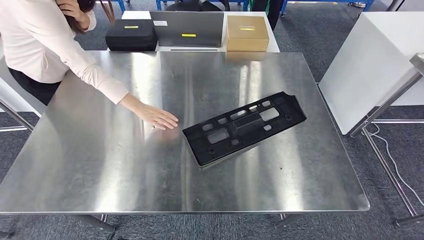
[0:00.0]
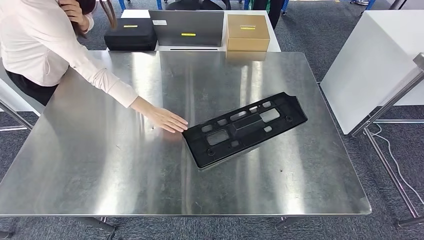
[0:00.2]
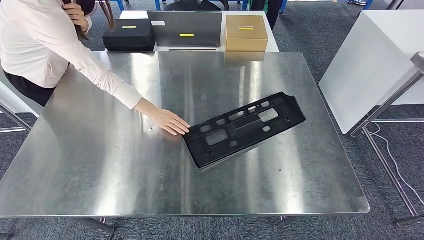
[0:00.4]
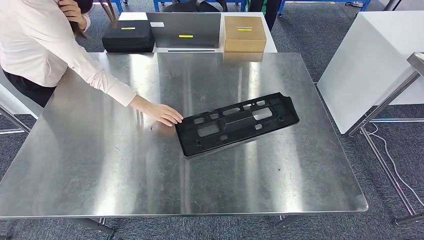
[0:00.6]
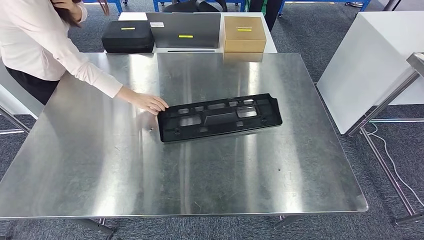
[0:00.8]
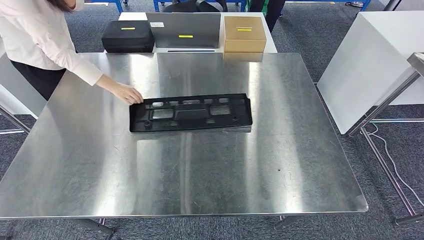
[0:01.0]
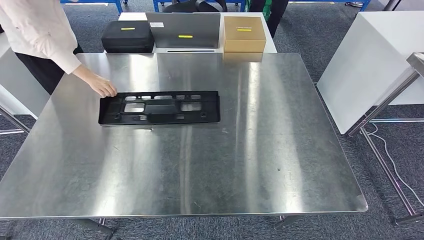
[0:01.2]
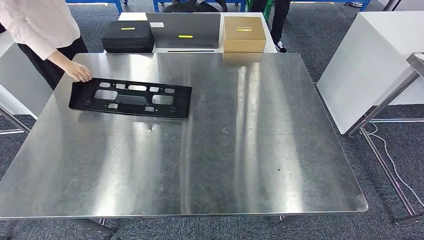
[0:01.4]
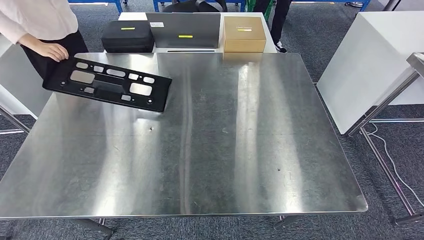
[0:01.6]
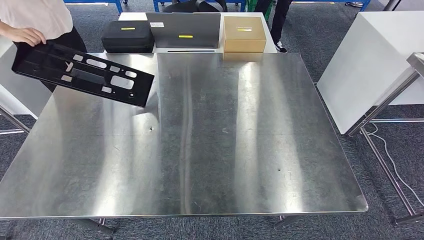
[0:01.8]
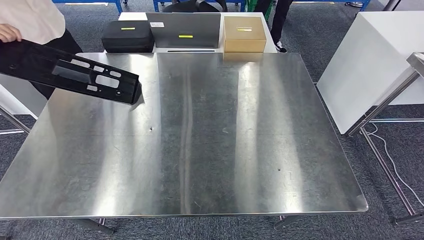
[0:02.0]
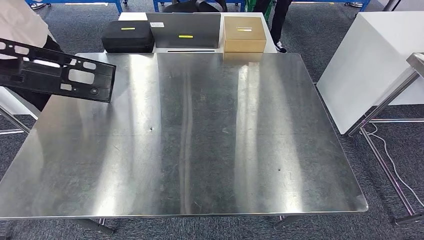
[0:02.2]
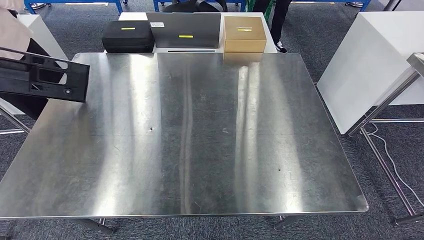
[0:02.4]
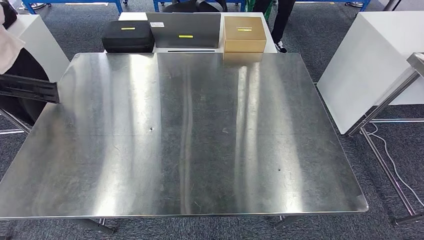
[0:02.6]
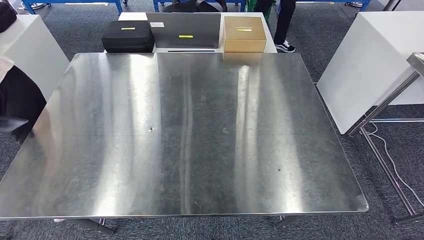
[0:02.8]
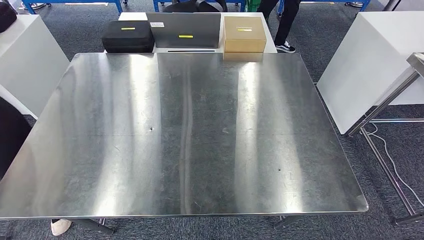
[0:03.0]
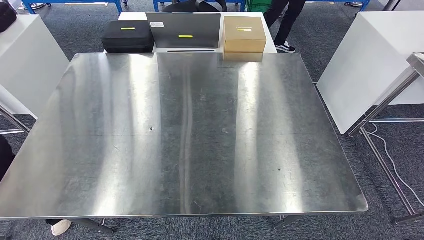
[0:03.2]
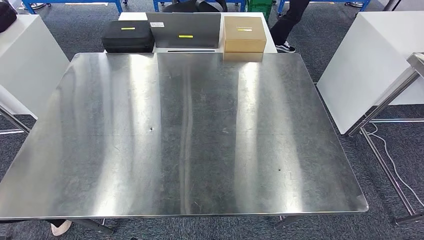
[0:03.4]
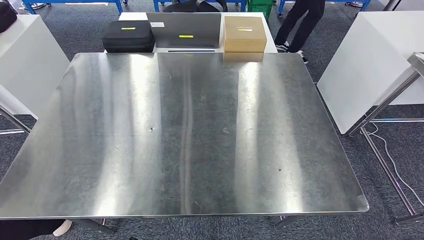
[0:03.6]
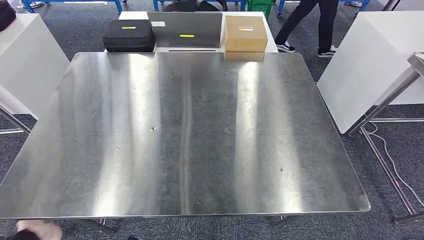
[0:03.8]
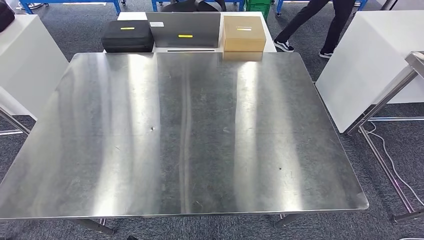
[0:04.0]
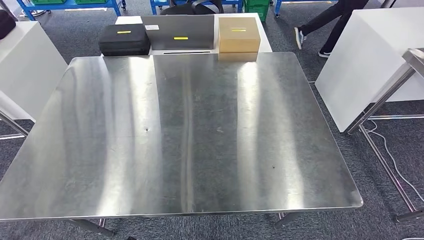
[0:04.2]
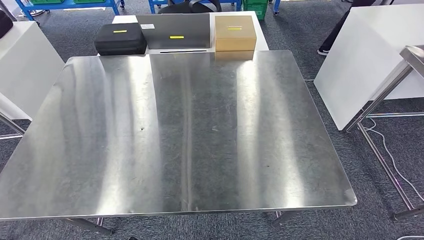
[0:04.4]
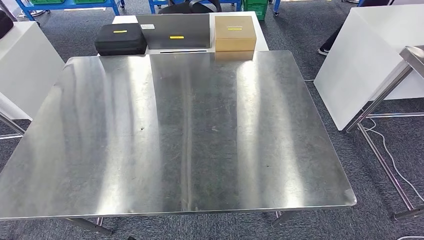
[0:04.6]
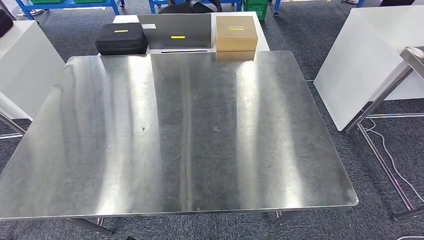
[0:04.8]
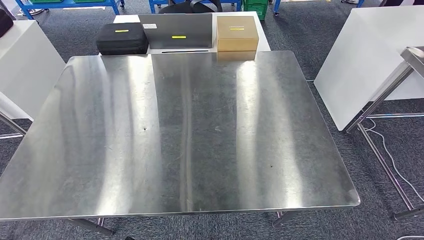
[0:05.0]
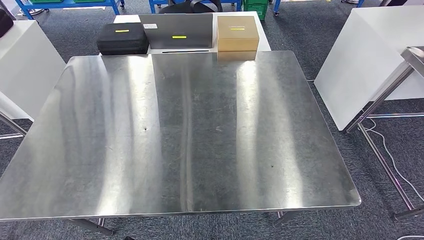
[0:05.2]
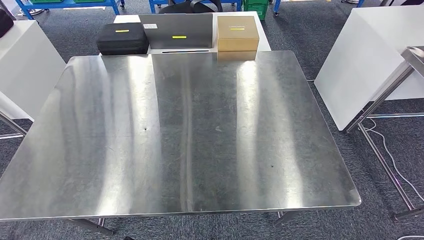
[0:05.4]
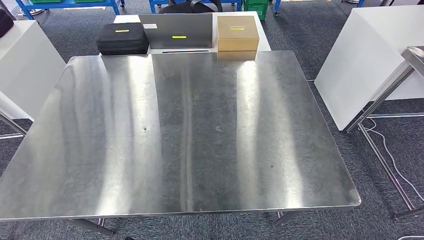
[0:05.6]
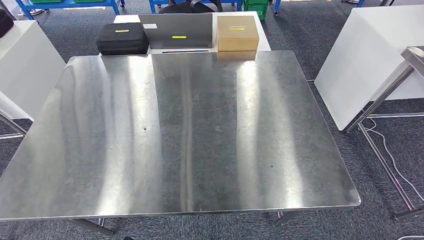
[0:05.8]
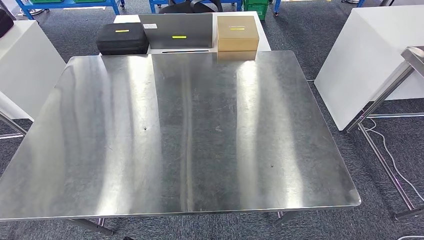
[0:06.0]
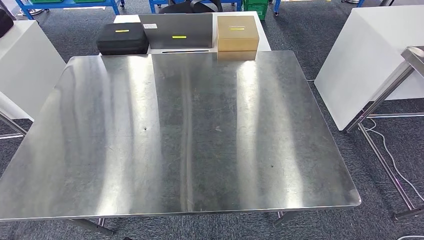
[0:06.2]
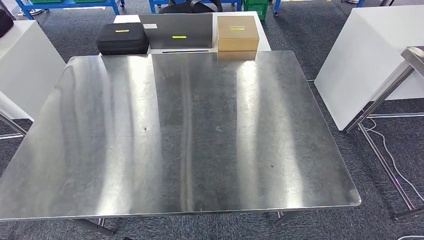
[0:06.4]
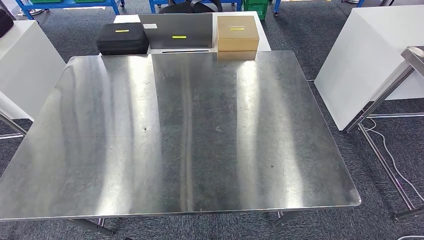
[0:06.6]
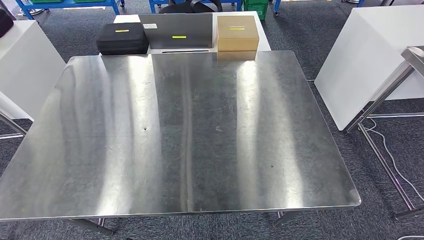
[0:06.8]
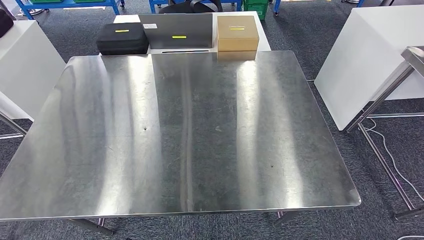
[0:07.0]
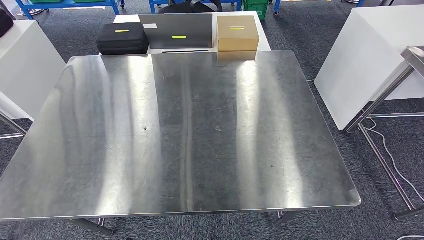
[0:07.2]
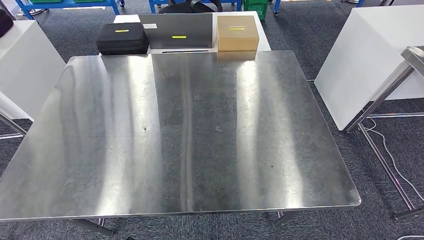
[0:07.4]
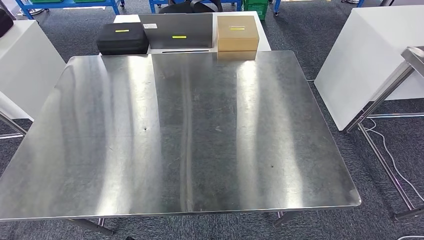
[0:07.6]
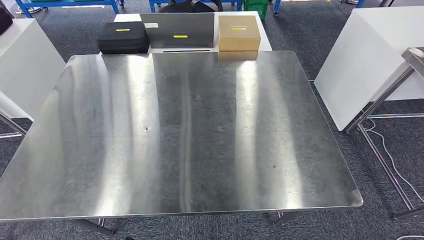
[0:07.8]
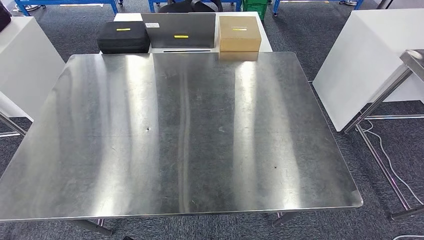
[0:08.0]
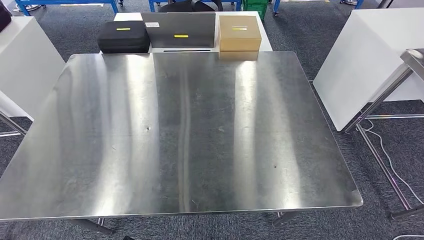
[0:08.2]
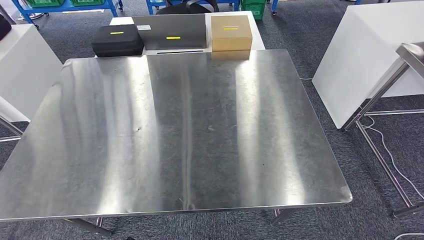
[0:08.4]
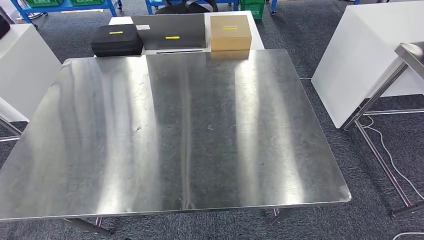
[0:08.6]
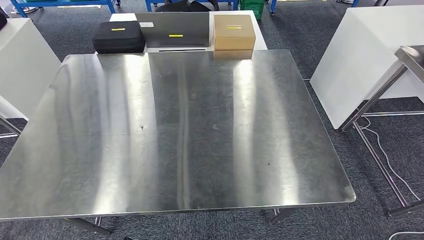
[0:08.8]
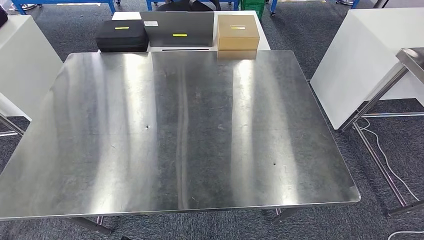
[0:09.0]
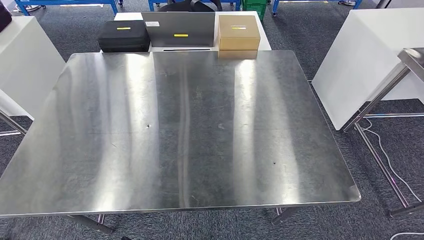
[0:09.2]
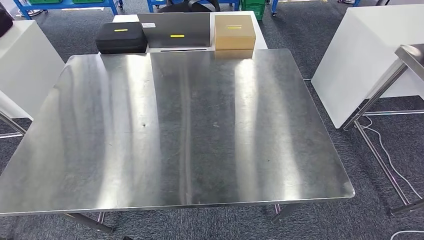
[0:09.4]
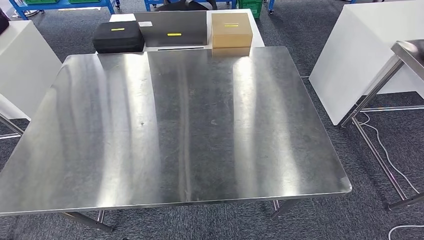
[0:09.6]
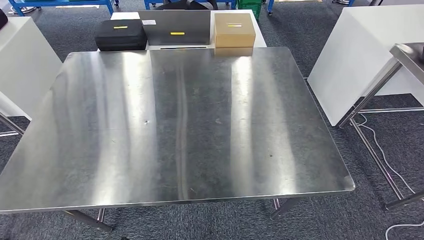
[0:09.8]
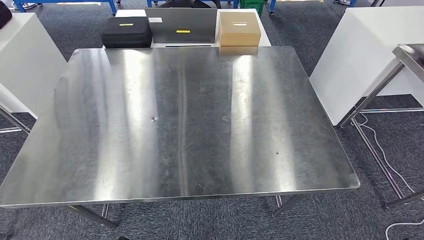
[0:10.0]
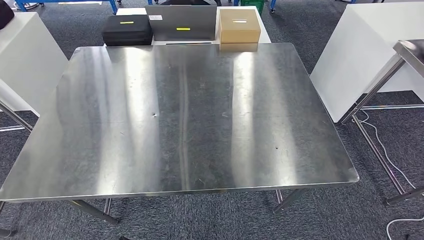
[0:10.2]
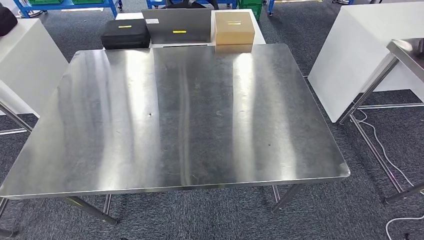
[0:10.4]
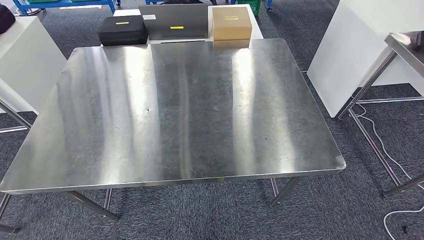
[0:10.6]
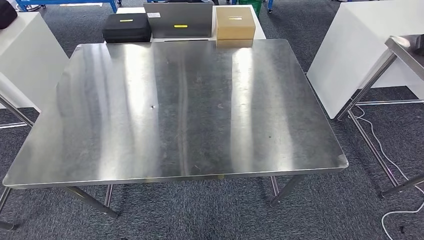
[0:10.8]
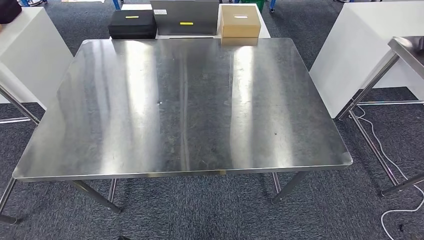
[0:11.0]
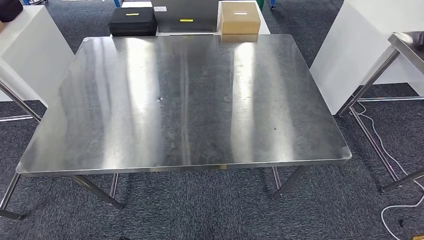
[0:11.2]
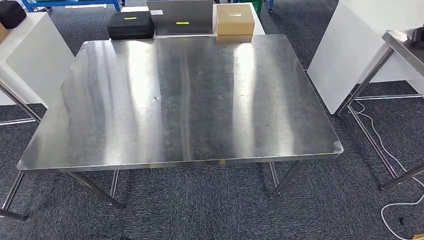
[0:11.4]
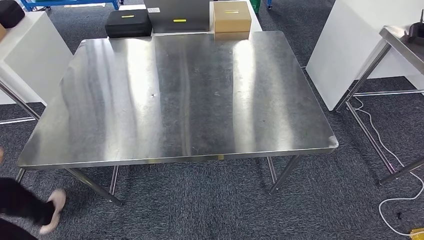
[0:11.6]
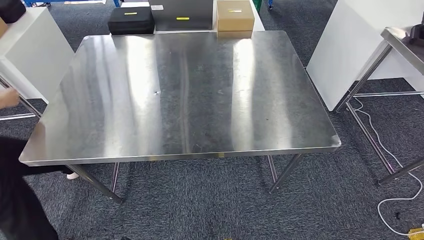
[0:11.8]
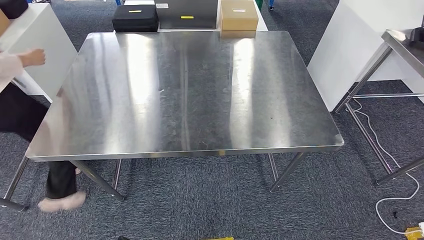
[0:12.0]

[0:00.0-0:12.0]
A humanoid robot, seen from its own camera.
0:01.6 to 0:03.0: The right hand shifts about 15 cm to the left.
0:03.0 to 0:04.4: The hands move only a little.
0:04.4 to 0:09.0: Both hands stay put.

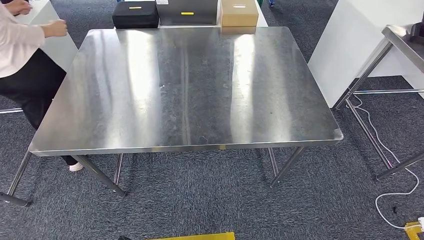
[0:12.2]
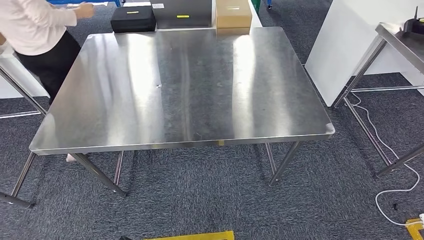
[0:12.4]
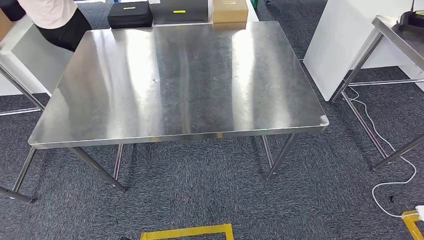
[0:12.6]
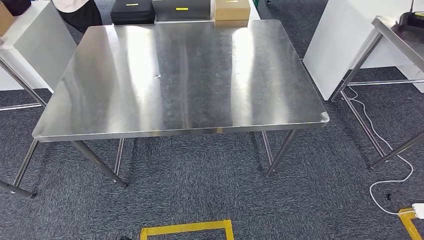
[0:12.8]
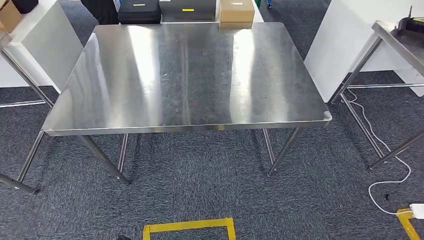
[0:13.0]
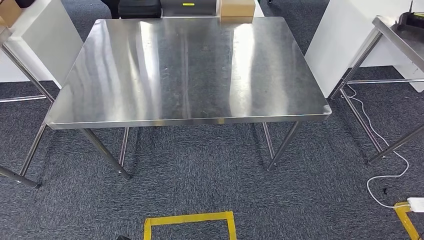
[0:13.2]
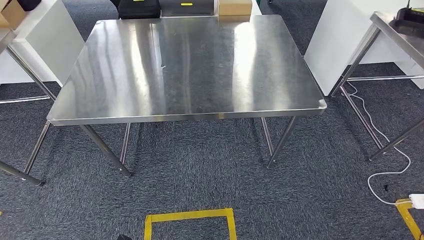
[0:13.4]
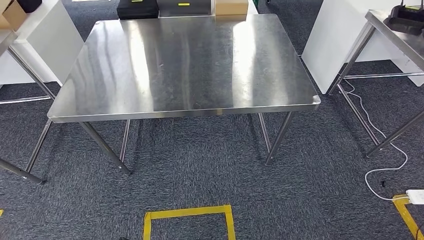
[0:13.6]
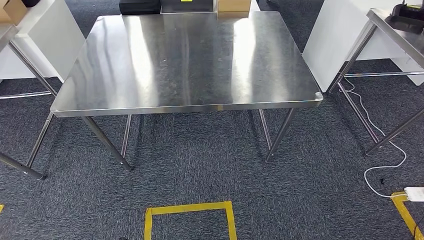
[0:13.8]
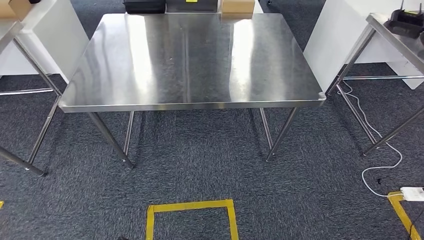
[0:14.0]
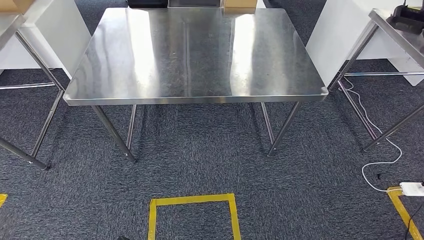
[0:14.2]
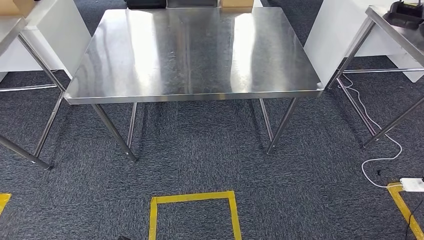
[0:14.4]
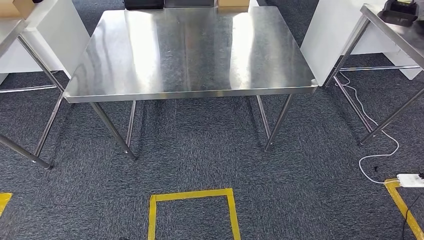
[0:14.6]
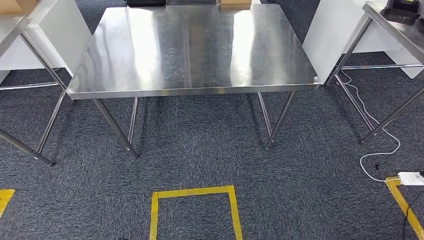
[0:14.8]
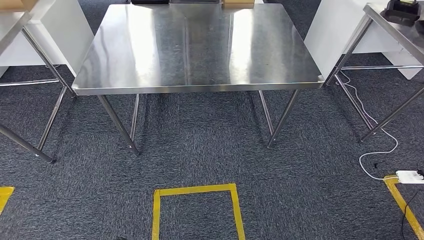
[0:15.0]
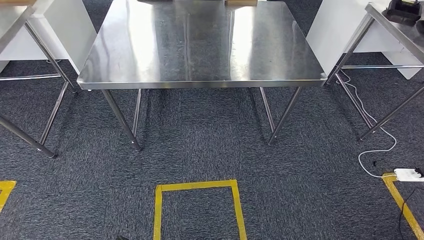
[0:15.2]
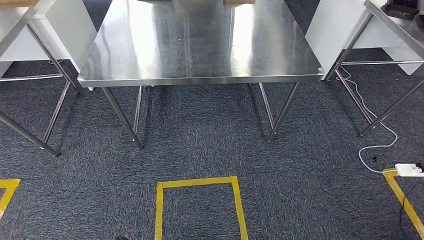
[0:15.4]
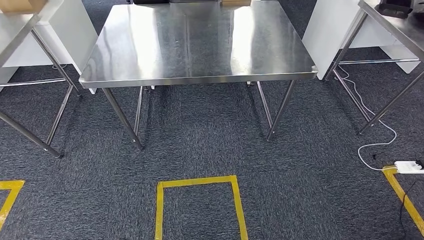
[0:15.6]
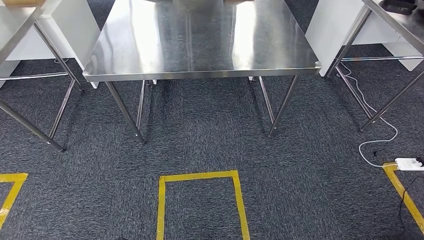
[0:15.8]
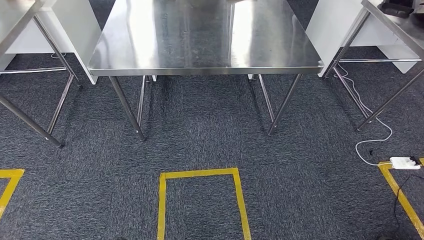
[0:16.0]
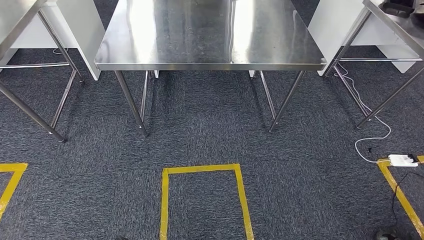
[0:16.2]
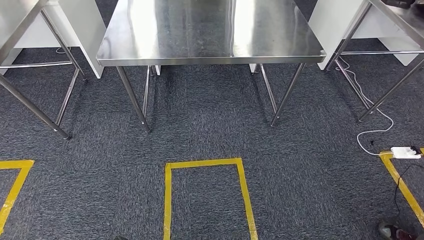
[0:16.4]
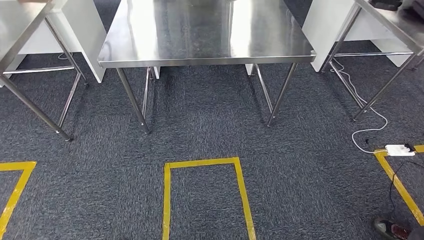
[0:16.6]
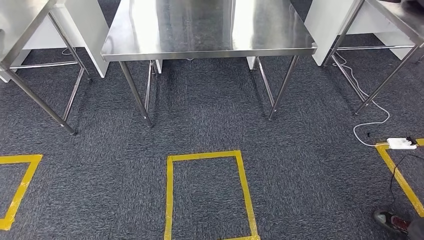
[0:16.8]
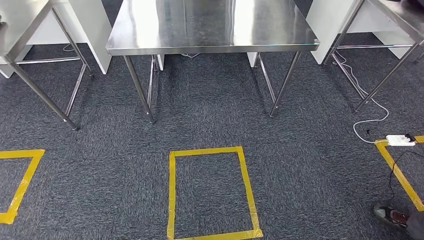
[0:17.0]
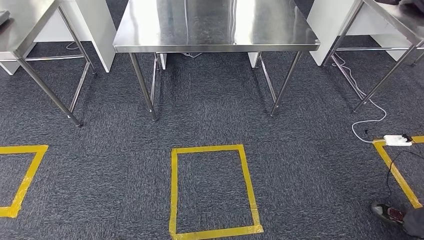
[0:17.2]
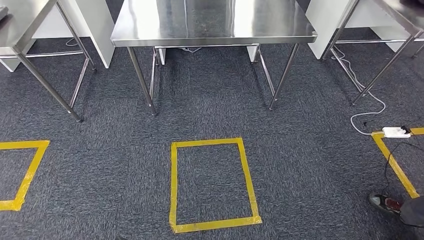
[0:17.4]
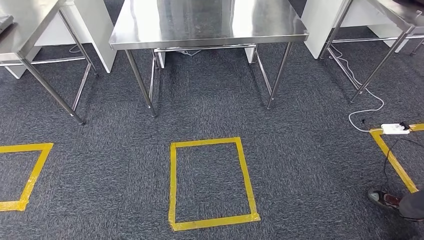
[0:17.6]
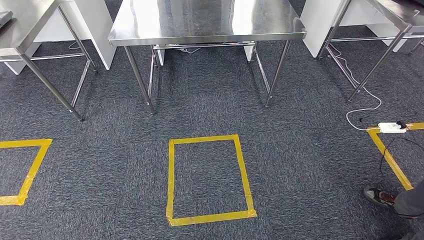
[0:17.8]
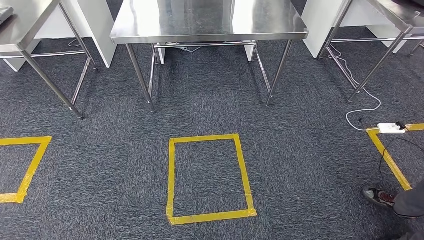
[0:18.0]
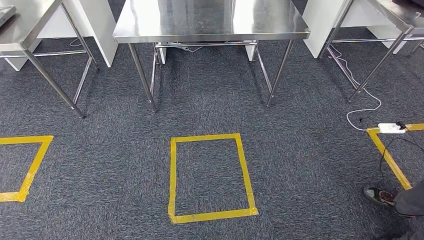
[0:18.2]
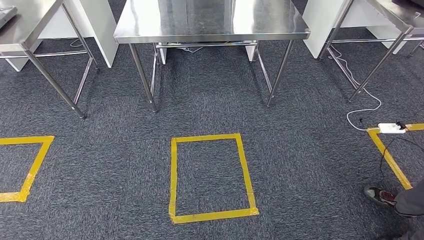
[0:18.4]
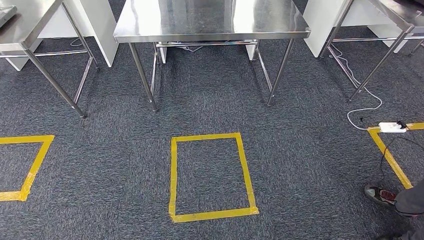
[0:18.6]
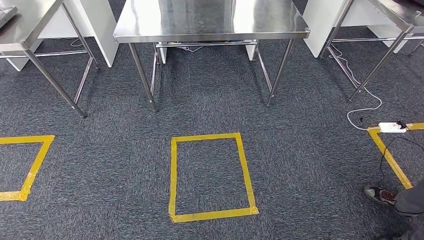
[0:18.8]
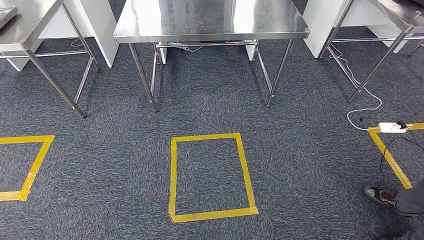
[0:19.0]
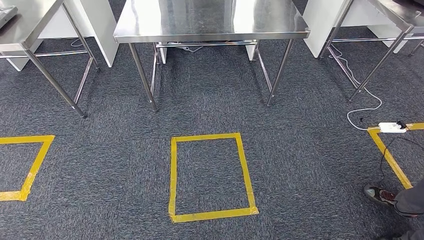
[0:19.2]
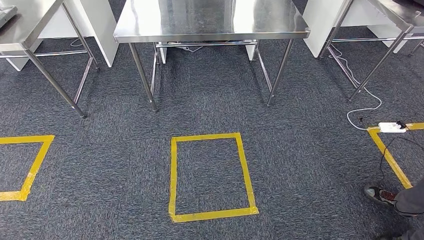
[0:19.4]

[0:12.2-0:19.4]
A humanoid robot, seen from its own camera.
0:18.0 to 0:19.4: The hands move only a little.
